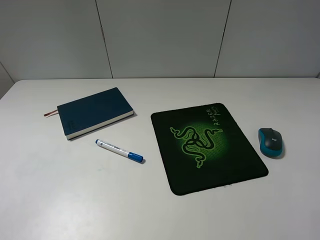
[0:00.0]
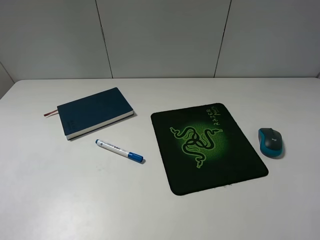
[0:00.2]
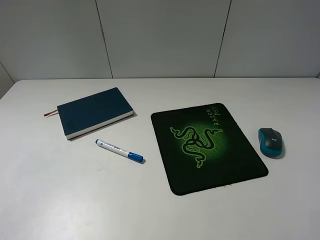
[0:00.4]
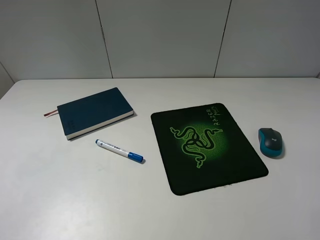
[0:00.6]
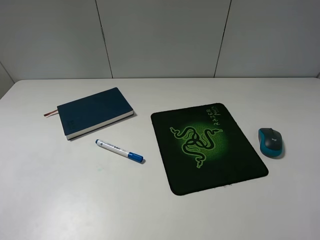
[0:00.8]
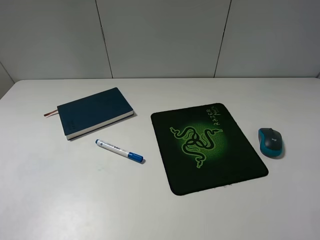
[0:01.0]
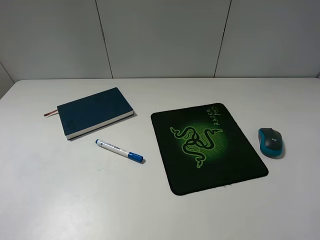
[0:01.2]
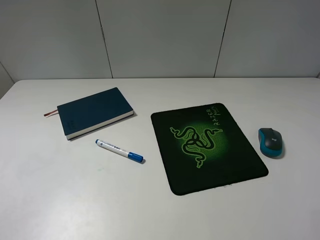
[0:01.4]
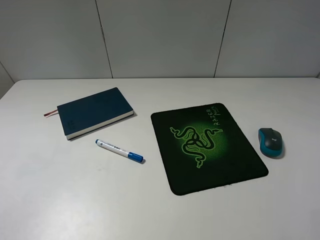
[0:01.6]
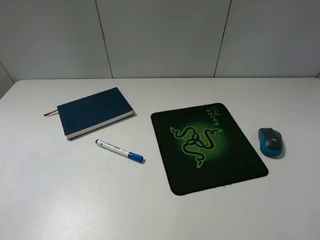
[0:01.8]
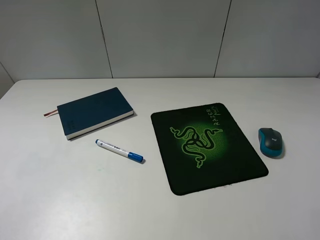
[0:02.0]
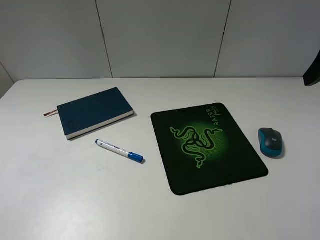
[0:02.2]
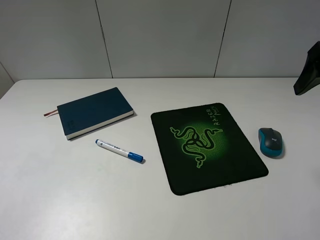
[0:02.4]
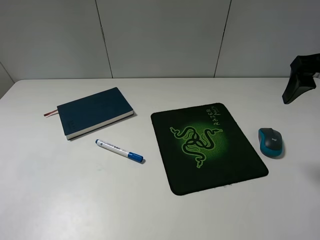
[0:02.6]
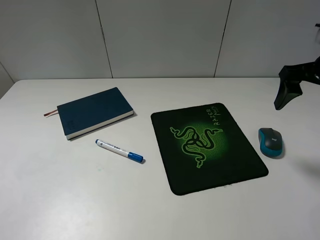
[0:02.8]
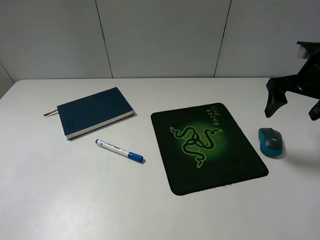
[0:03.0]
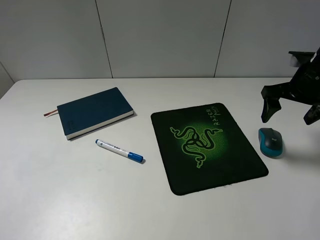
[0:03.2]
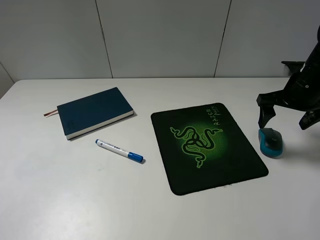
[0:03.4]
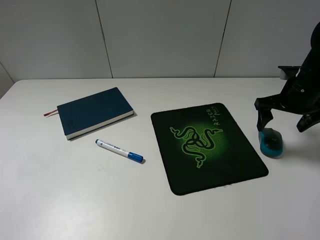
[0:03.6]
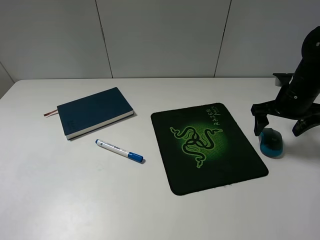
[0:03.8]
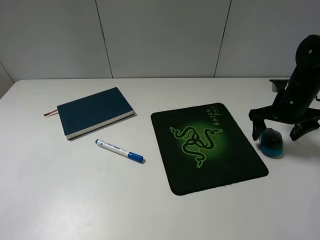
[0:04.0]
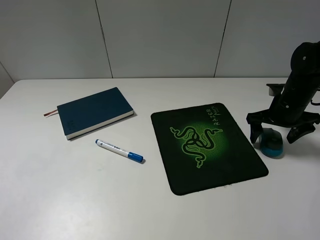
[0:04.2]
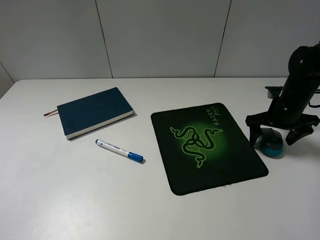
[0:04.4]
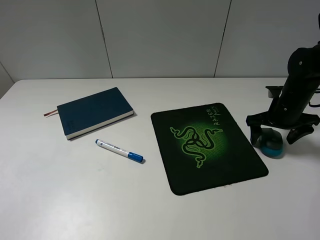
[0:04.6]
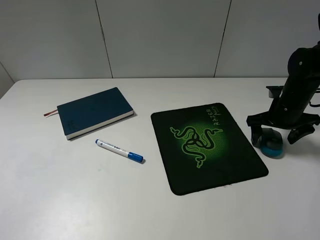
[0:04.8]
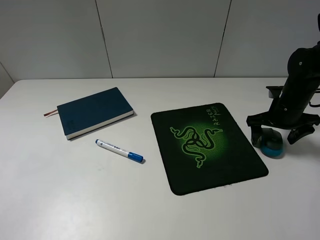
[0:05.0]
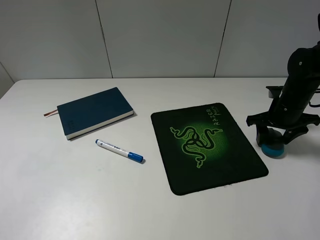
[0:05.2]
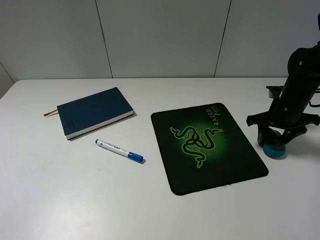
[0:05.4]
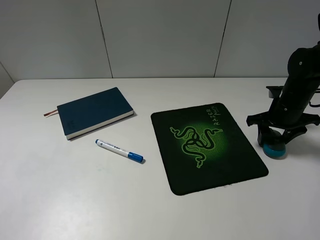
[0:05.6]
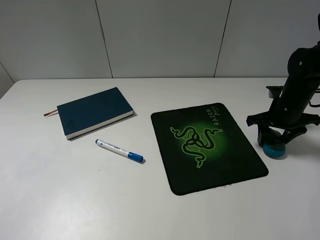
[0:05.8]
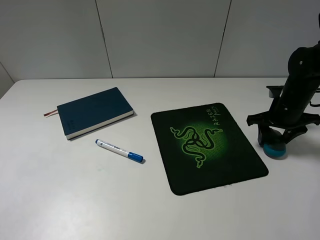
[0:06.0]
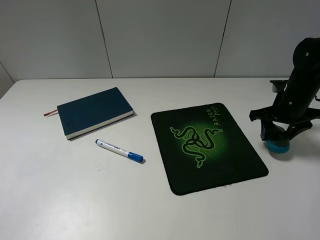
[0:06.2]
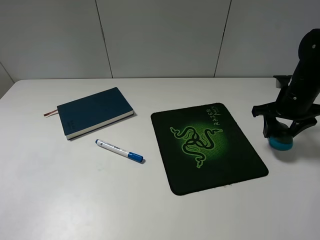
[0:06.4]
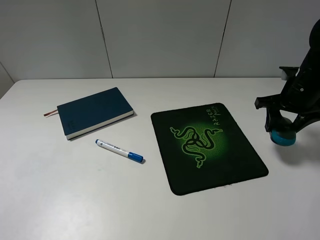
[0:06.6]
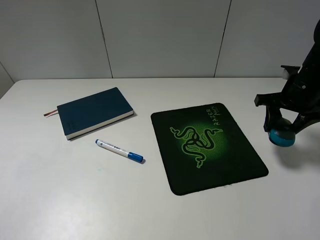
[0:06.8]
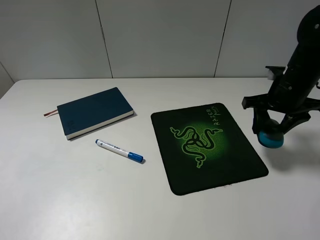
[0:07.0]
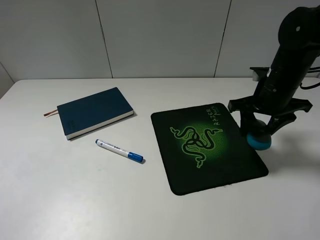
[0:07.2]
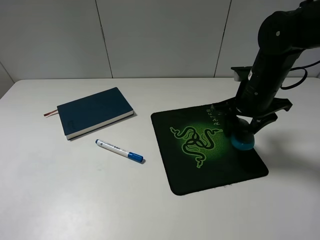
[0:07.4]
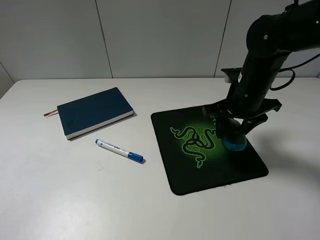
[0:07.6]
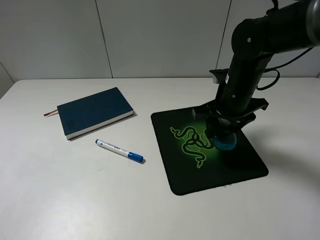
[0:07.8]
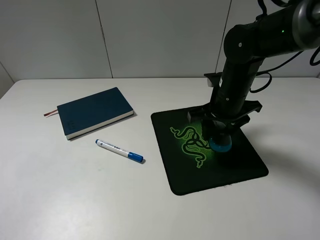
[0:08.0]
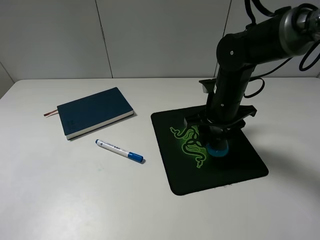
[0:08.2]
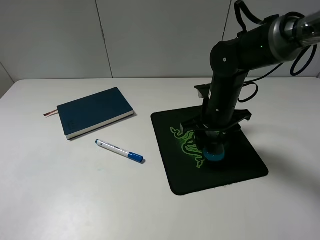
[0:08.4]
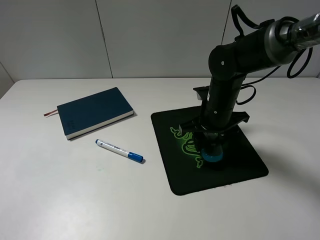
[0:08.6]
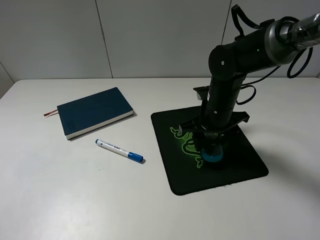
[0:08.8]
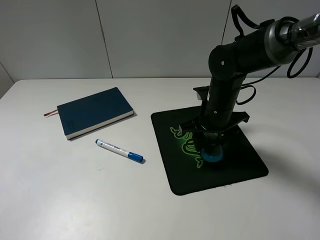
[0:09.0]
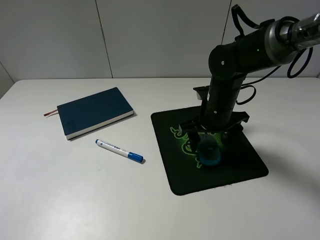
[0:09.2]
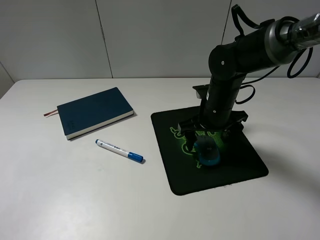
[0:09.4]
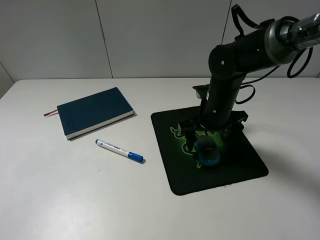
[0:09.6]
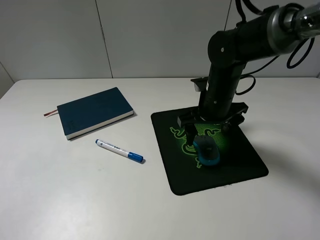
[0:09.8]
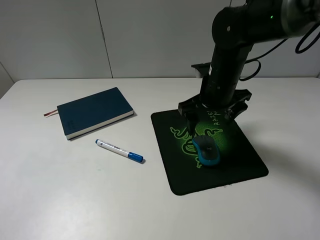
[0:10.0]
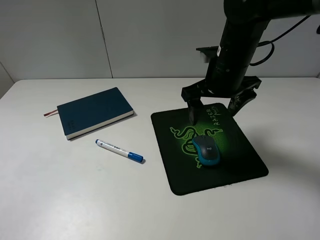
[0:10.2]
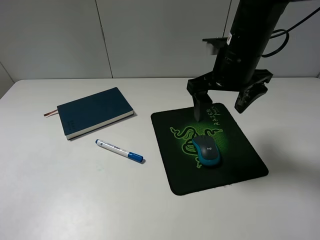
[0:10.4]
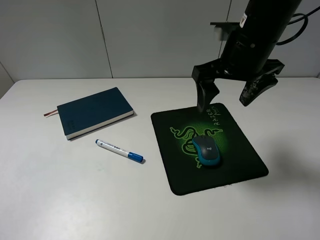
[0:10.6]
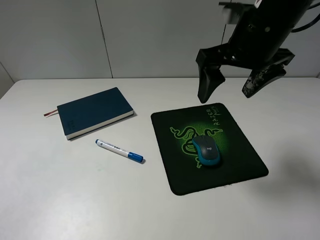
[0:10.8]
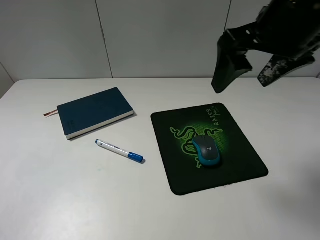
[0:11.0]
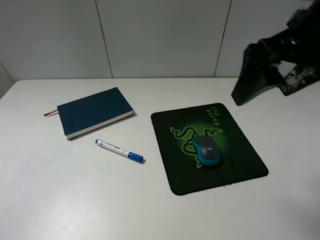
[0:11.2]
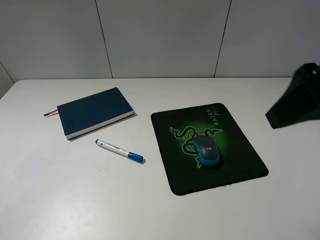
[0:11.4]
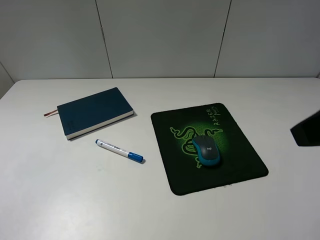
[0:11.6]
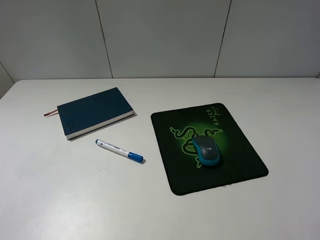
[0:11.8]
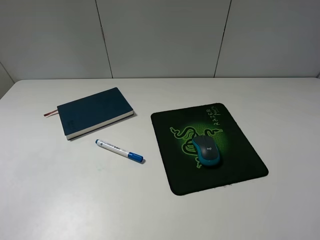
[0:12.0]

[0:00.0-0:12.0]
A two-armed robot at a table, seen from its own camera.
Step, 0:00.0 to 0:05.6: Grasp the mouse with the right gripper.
Step, 0:05.8 to 0:09.4: Place the mouse on the mouse pad with the right gripper.
0:01.6 to 0:03.0: The right gripper heads forward and downward, covering roughly 25 cm.
0:03.0 to 0:04.4: The right gripper is displaced downward by roughly 10 cm.
0:04.4 to 0:06.0: The right gripper closes up.
0:06.0 to 0:07.6: The right gripper is displaced to the left and upward by roughly 15 cm.
0:07.6 to 0:09.0: The right gripper changes place by about 5 cm.
0:09.0 to 0:10.4: The right gripper shifts about 15 cm upward, and opens up.
0:10.4 to 0:12.0: The right gripper shifts approximately 30 cm backward and to the right.

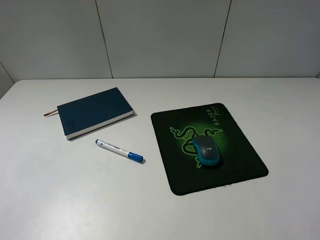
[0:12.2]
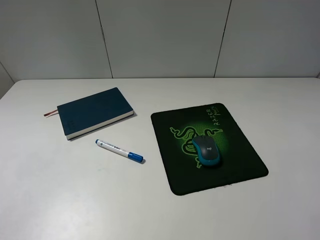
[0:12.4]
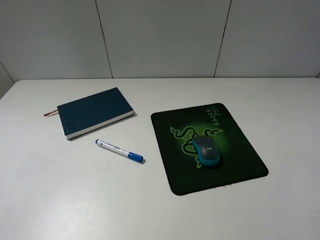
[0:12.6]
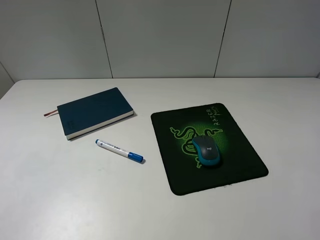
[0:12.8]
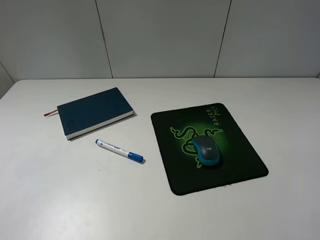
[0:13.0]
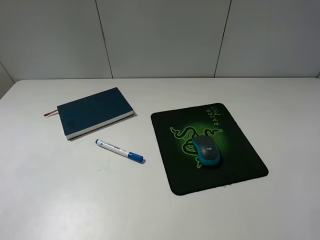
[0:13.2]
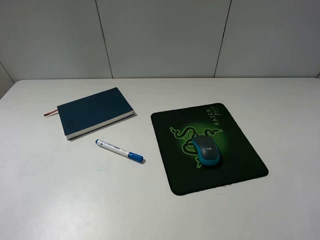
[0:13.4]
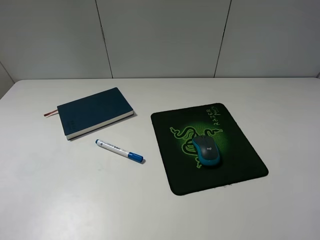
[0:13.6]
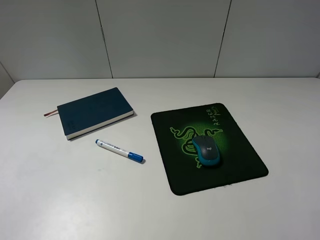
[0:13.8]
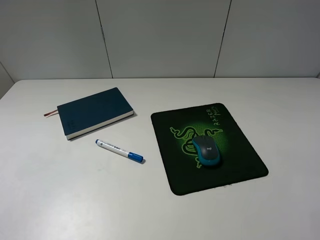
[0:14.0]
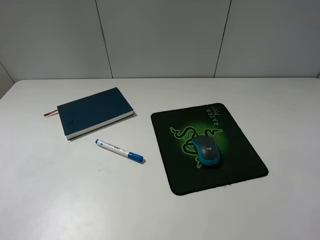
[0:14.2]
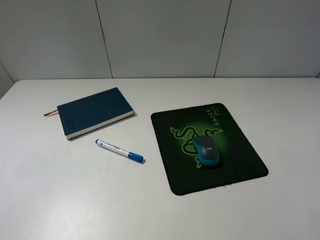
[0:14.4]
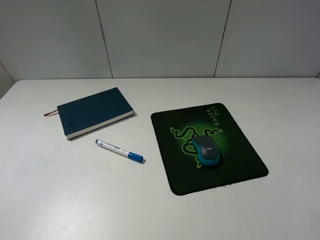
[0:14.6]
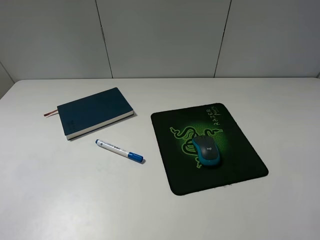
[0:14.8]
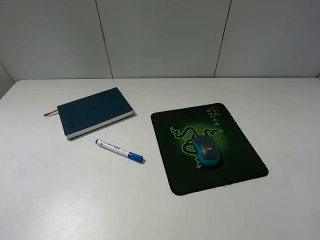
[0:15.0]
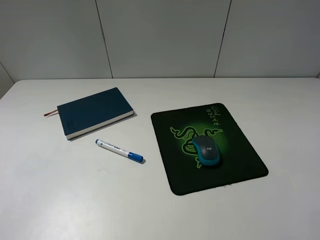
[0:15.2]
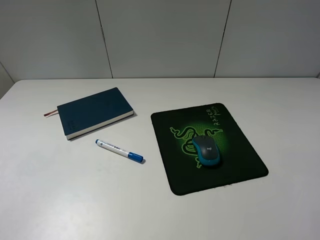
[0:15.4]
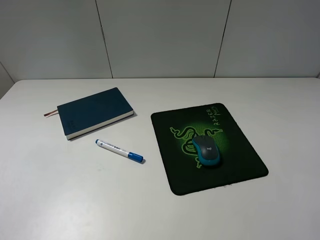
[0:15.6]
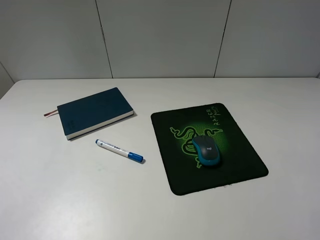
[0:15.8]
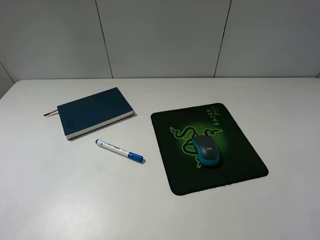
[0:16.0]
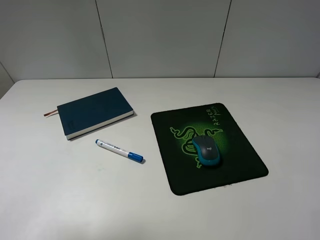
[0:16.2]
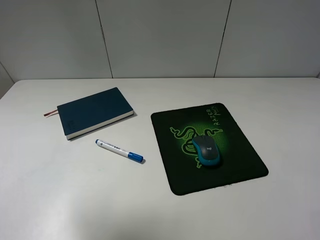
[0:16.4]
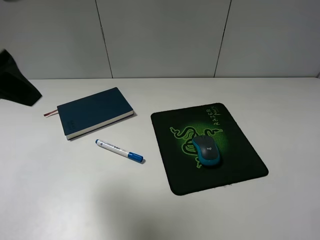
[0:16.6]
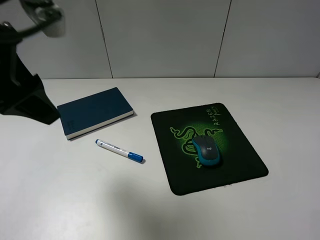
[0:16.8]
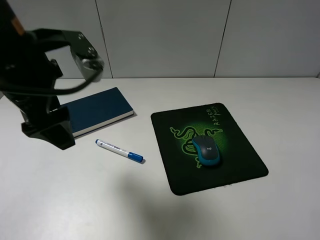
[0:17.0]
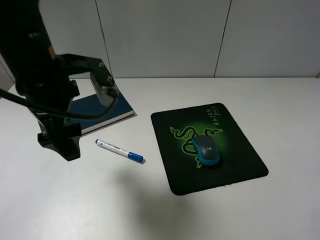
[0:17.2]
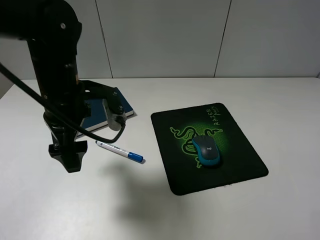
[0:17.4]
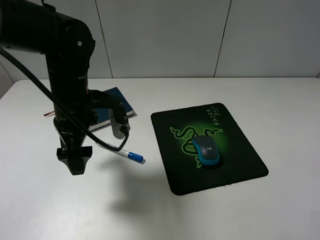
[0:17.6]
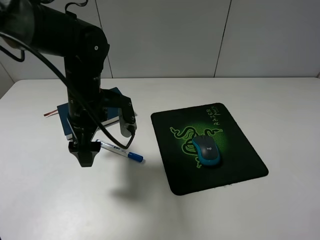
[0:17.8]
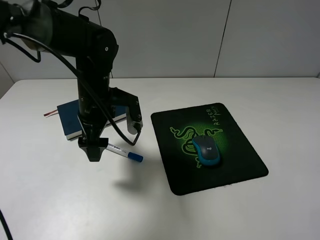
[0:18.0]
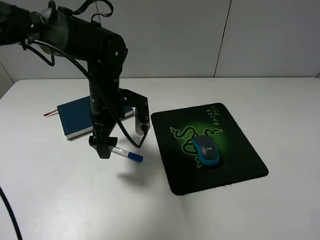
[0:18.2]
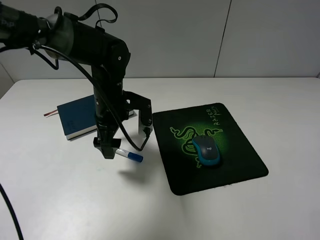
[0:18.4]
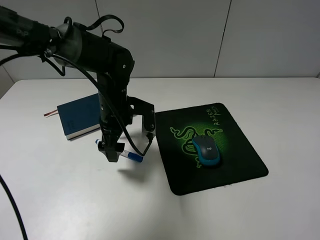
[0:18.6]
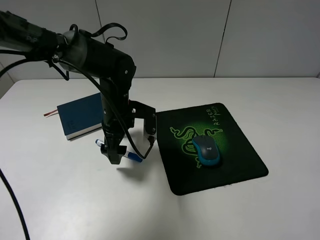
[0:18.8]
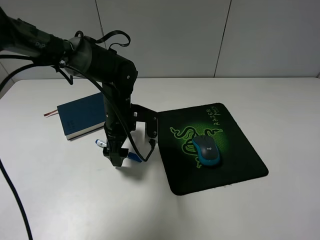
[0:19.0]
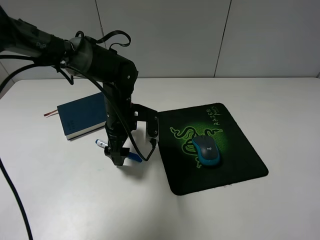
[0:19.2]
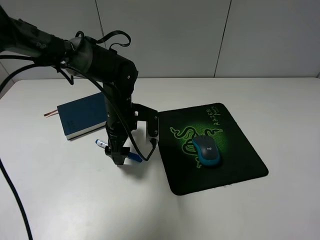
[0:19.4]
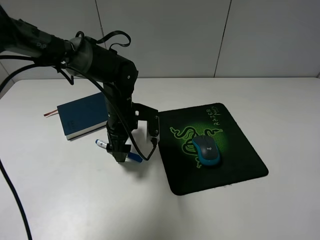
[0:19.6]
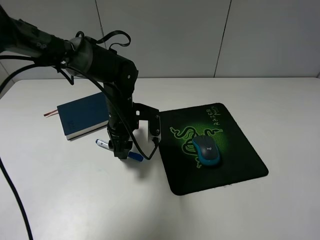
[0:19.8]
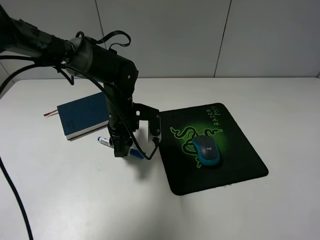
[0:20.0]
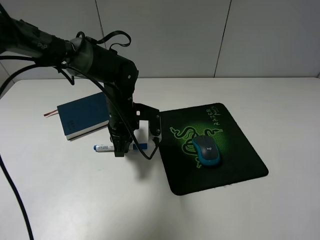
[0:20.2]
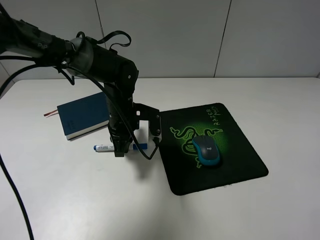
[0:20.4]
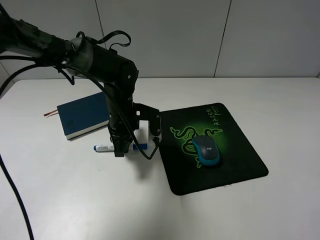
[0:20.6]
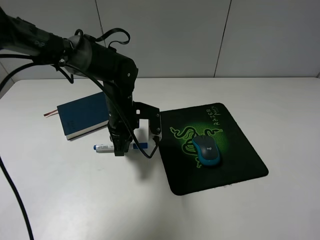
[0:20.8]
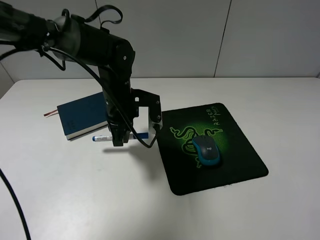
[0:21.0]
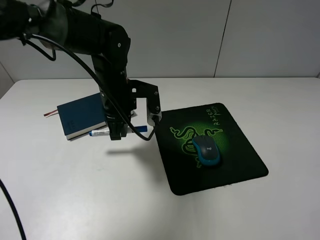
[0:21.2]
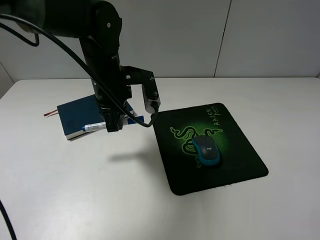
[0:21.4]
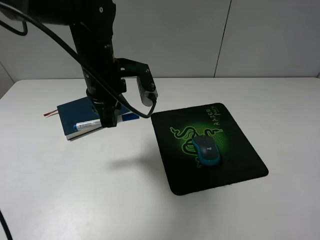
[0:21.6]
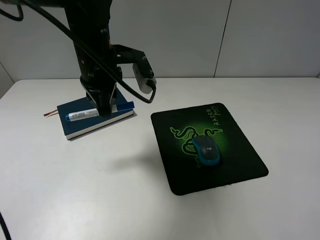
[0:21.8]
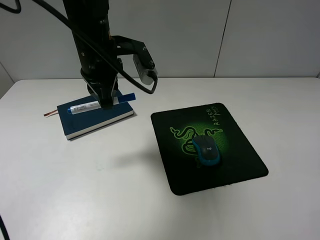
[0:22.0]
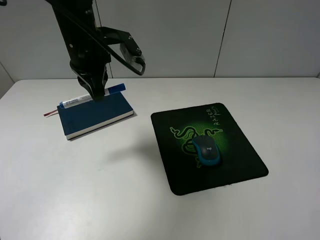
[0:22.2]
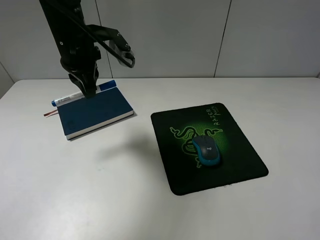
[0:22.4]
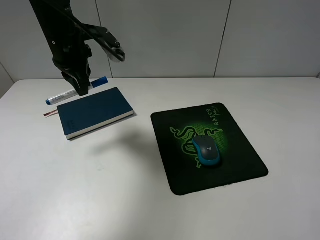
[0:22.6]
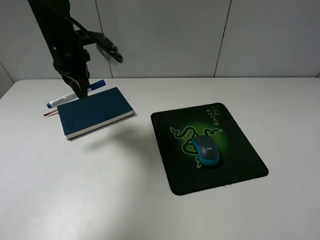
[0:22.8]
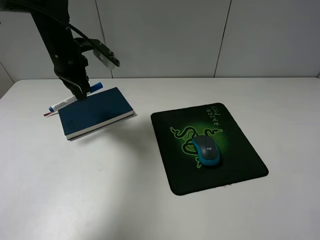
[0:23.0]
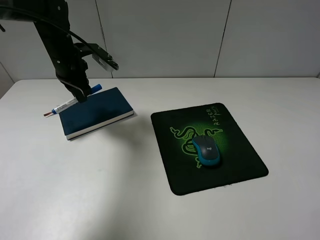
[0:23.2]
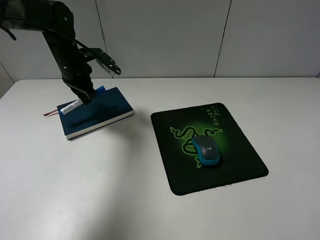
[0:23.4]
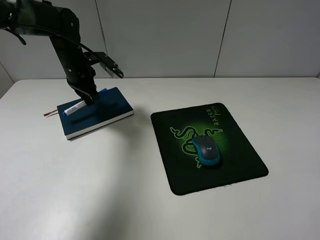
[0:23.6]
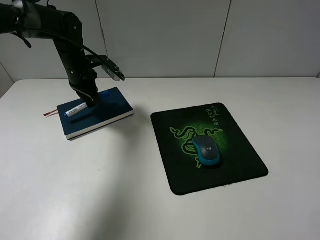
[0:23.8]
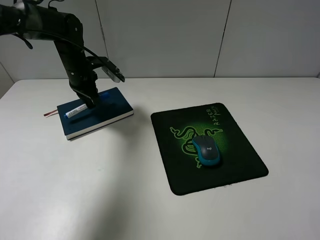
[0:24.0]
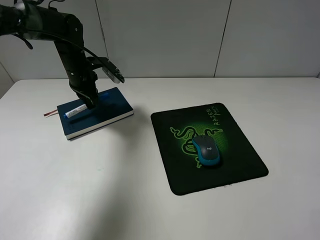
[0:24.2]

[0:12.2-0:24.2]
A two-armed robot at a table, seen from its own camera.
Step, 0:12.2 to 0:20.4: Grasp the marker with the left gripper.
0:13.8 to 0:15.2: Neither gripper changes place.
0:15.2 to 0:16.6: The left gripper is displaced forward, to the right and upward by roughly 25 cm.
0:16.6 to 0:18.2: The left gripper is displaced downward, to the right and forward by about 30 cm.
0:18.2 to 0:19.8: The left gripper heads downward, covering approximately 5 cm, and closes its fingers.
0:19.8 to 0:21.2: The left gripper shifts approximately 5 cm upward, and closes its fingers.
0:21.2 to 0:22.6: The left gripper moves upward and to the left, approximately 15 cm.
0:22.6 to 0:24.2: The left gripper travels downward and forward by about 15 cm.
